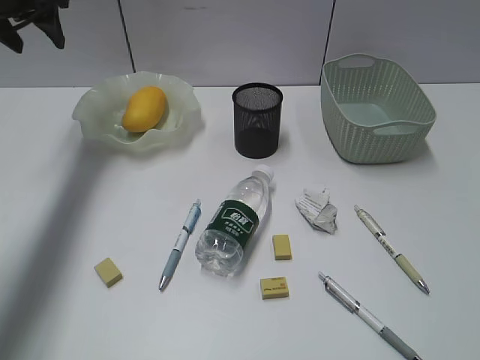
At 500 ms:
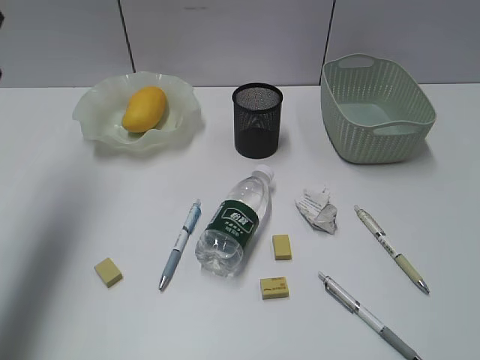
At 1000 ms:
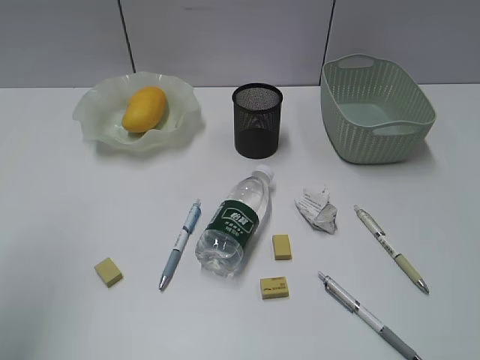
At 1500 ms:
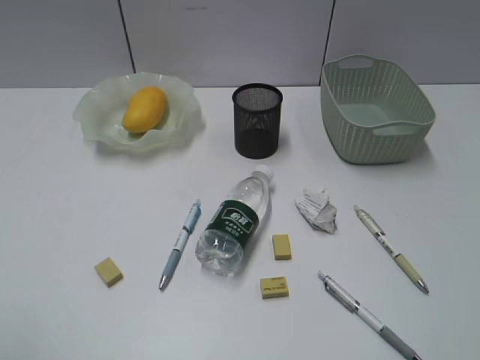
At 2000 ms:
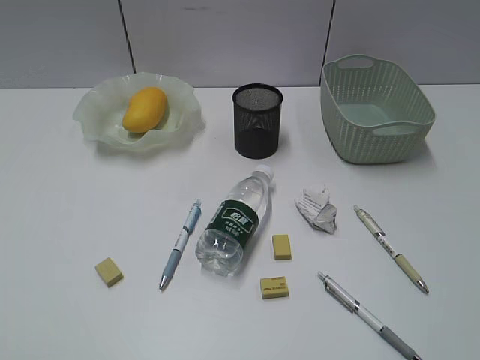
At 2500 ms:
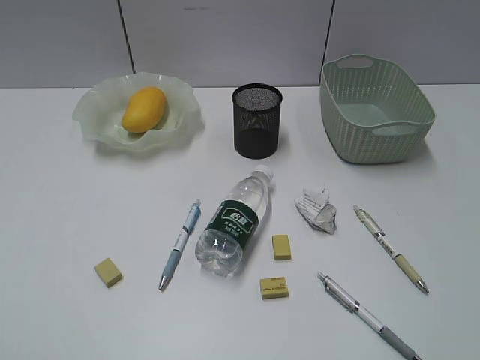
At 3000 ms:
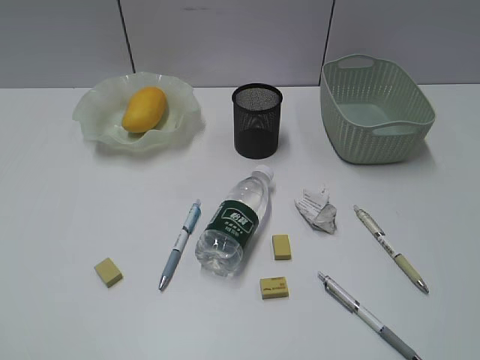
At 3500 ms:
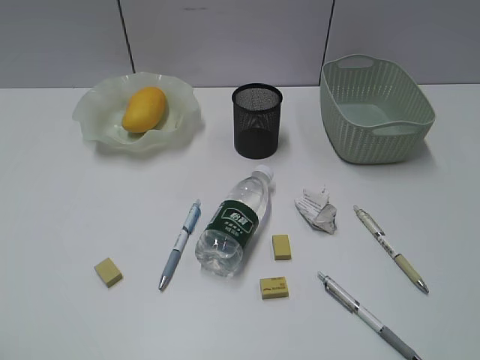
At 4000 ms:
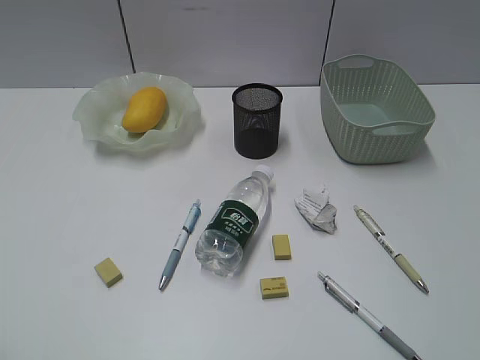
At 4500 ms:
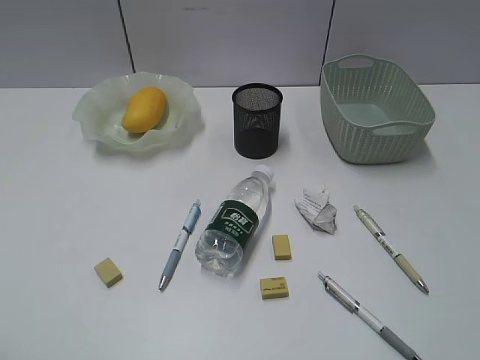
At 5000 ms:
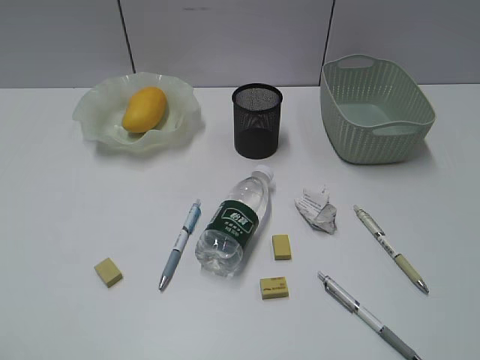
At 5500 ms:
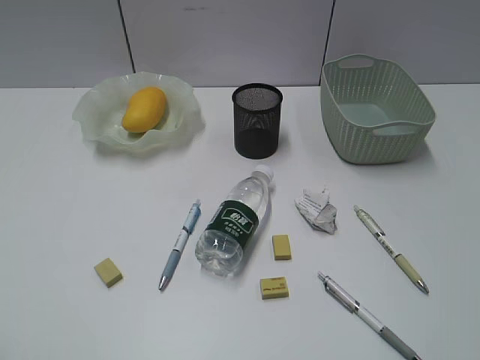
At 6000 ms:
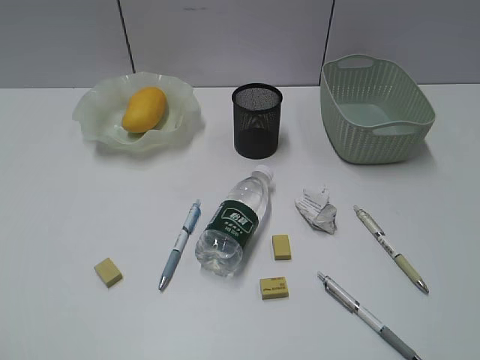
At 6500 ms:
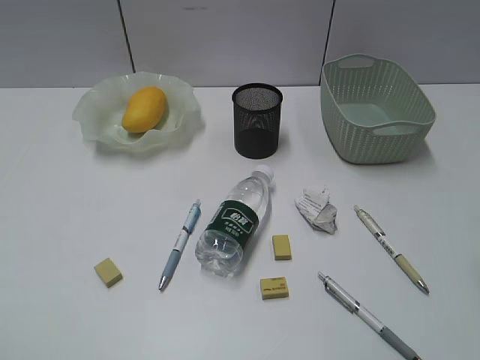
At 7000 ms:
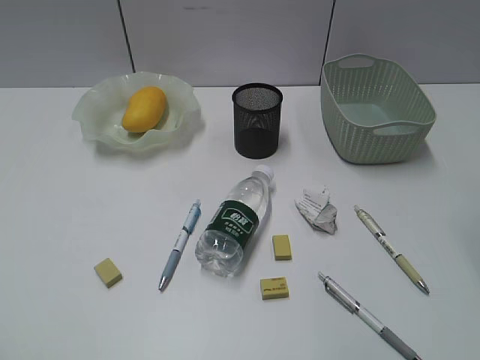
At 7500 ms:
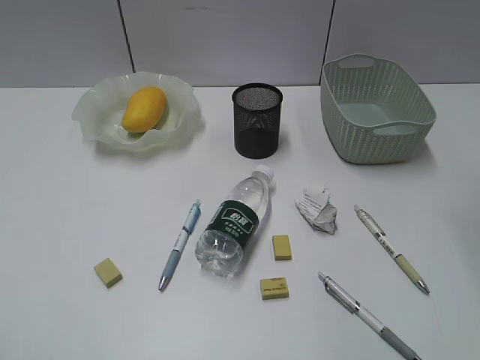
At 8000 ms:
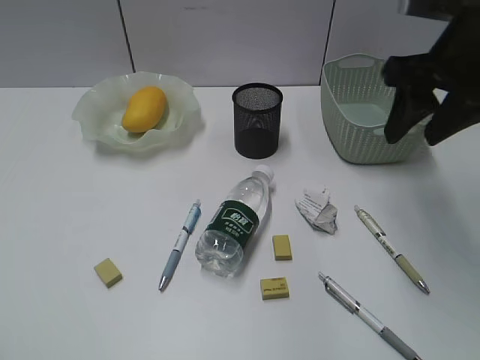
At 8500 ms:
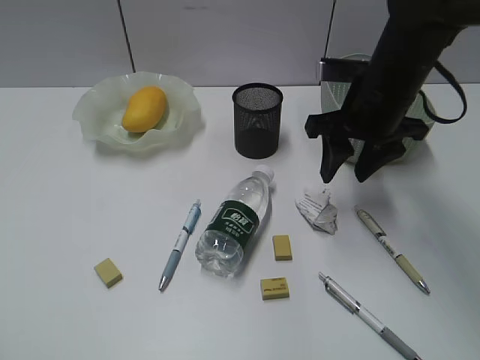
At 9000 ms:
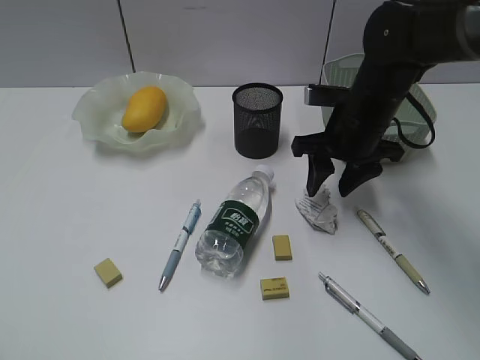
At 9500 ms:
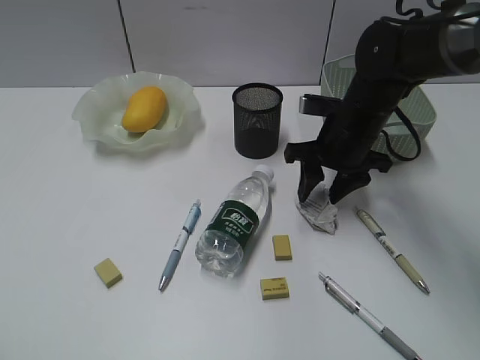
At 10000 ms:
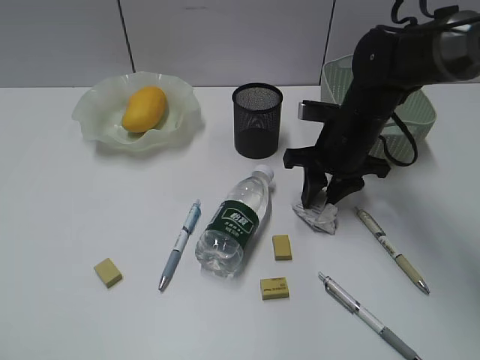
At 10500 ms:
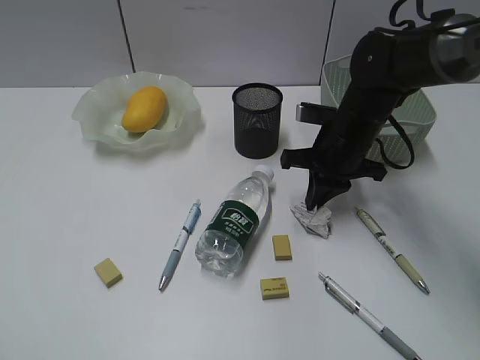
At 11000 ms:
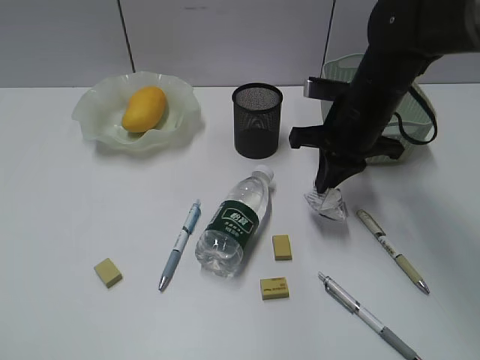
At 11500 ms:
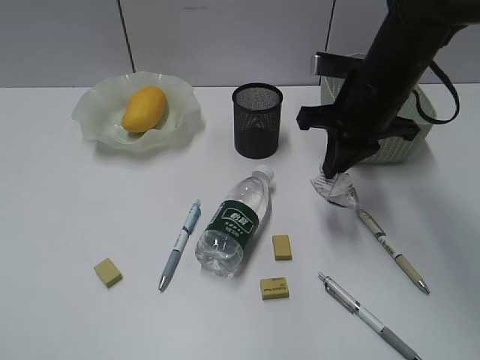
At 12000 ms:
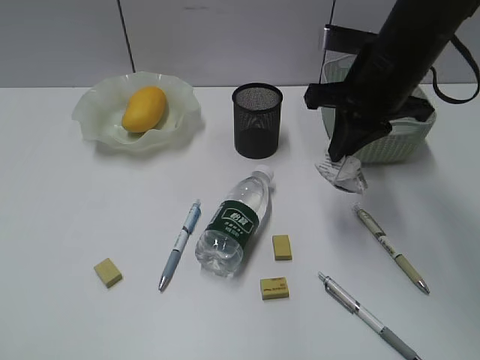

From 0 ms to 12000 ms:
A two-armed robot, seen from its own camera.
Step, from 0 ms to 10000 ms: Grasp the waste paper with right gripper.
From 0 ms to 2000 ms: The left gripper is displaced backward by about 50 cm.
From 6000 ms to 8000 ms: The right gripper goes roughly 30 cm forward.
From 8000 ms to 10000 ms: The right gripper travels downward and to the left by about 20 cm.
From 10000 ms to 12000 ms: The right gripper travels upward by some 10 cm, and closes up.

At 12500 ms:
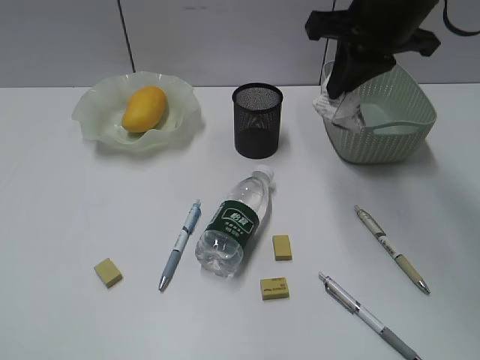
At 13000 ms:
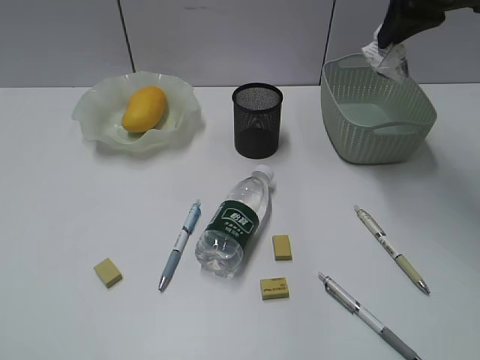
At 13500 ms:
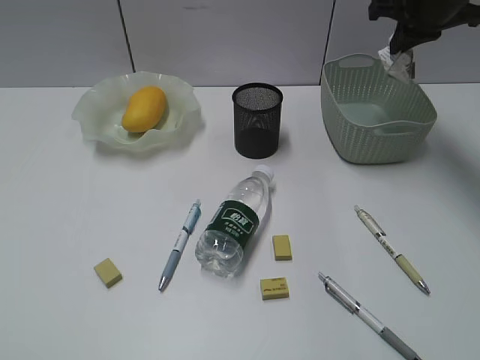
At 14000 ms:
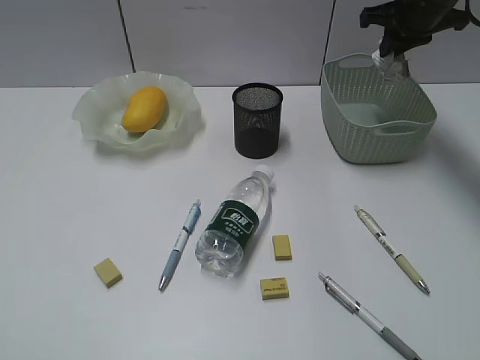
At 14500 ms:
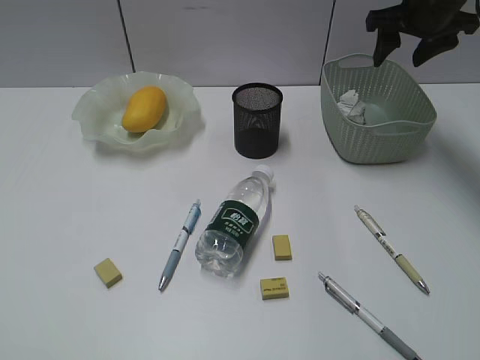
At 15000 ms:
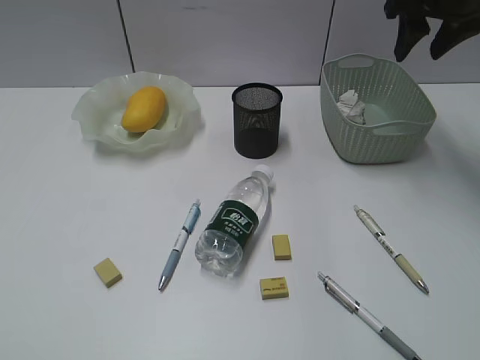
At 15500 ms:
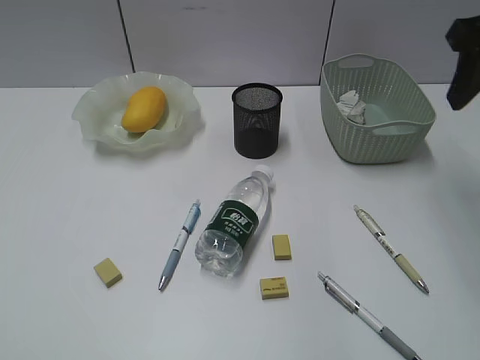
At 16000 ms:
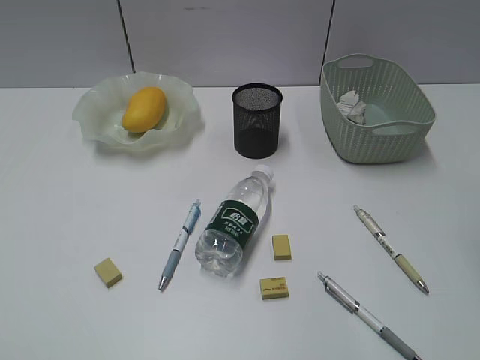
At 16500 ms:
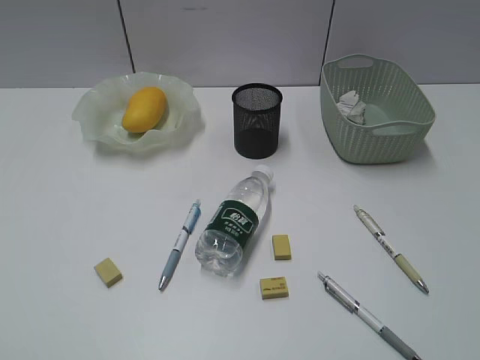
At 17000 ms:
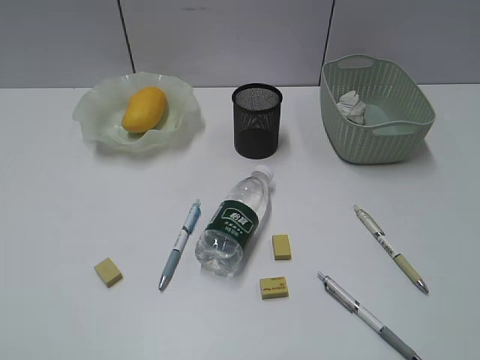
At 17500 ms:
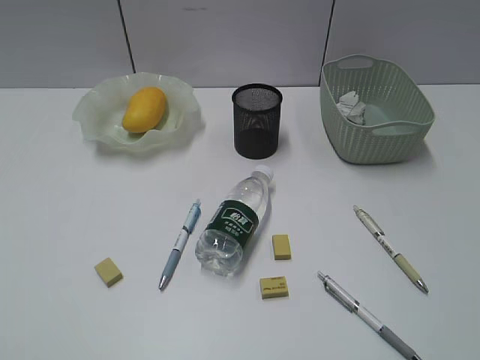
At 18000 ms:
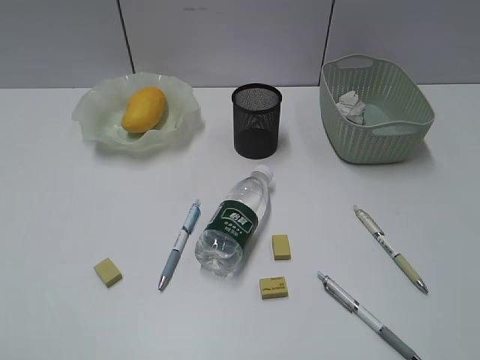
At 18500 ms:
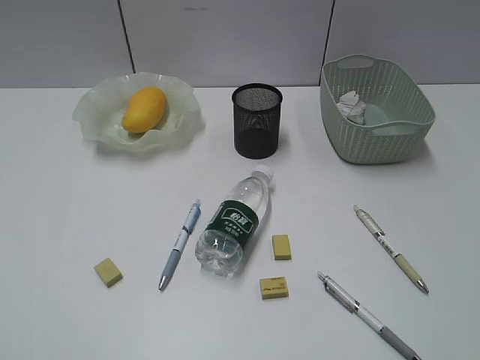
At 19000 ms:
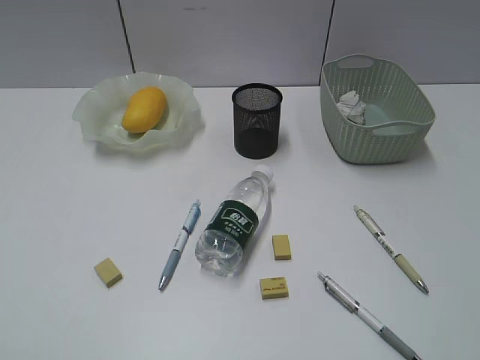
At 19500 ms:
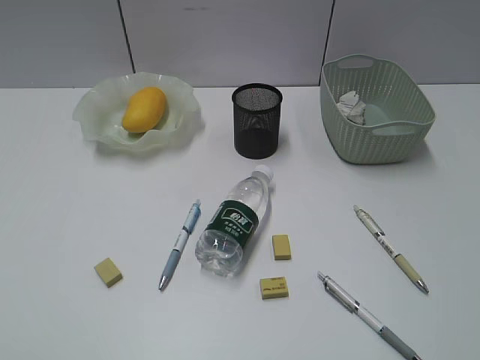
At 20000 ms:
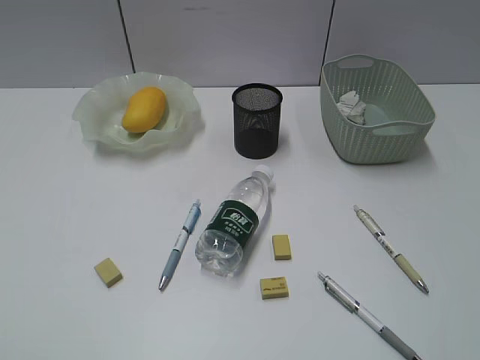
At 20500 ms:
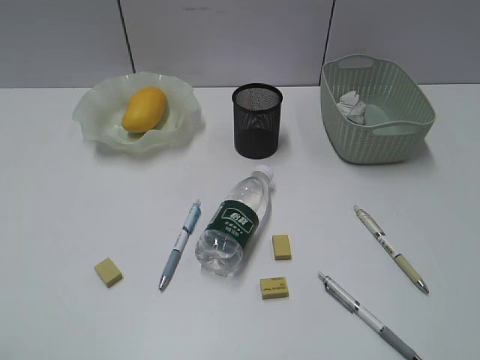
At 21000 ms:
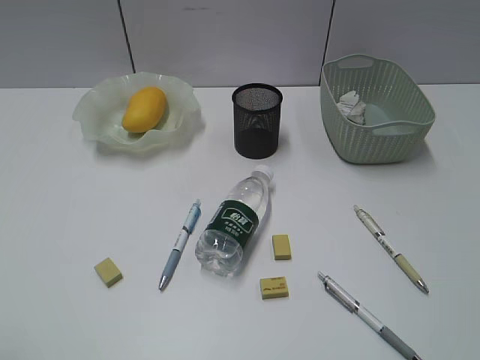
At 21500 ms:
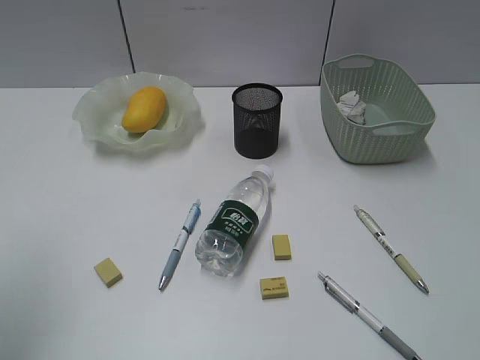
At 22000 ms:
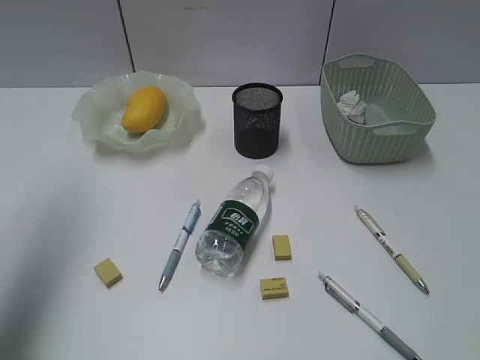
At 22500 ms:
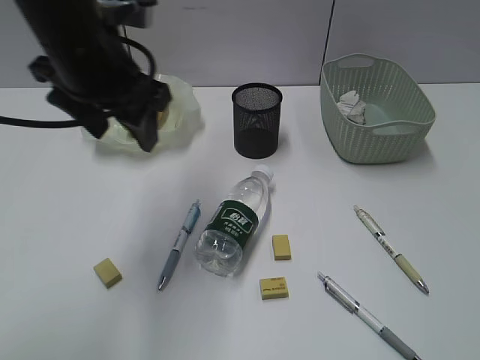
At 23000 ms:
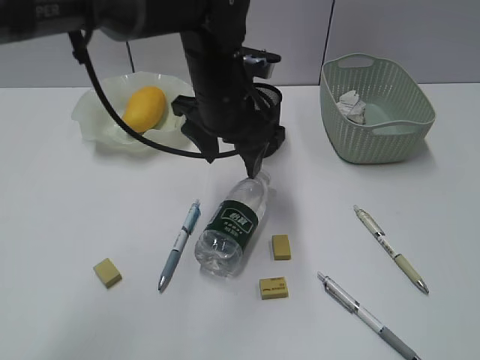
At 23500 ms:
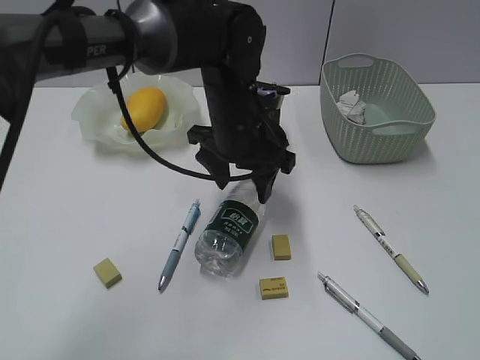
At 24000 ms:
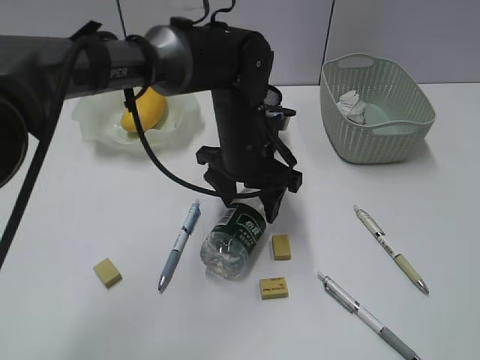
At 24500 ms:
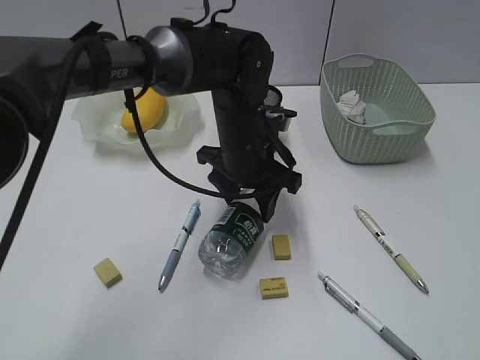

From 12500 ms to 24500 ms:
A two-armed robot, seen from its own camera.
From 12500 ms to 14500 ms: The right gripper is displaced forward and to the right by about 15 cm, and opens up.
From 14500 ms to 16500 ms: The right gripper travels backward by roughly 40 cm.
From 20500 ms to 22500 ms: The left gripper moves forward and to the right, roughly 35 cm.
From 22500 ms to 24500 ms: The left gripper travels to the right and downward by about 20 cm.

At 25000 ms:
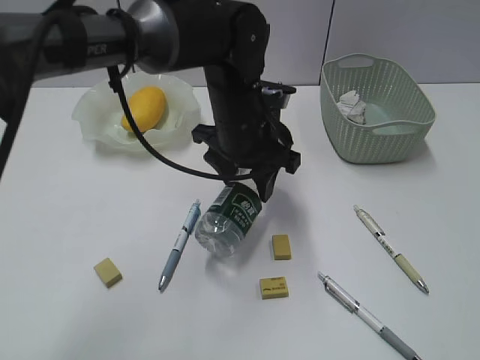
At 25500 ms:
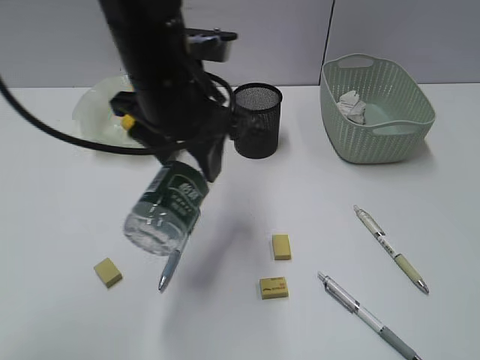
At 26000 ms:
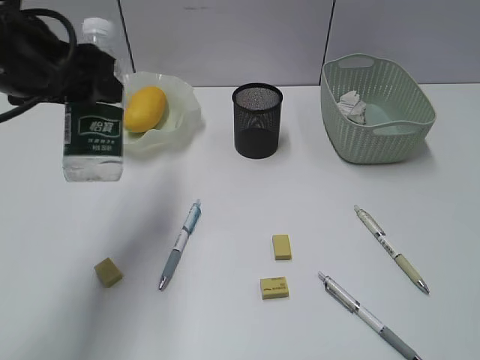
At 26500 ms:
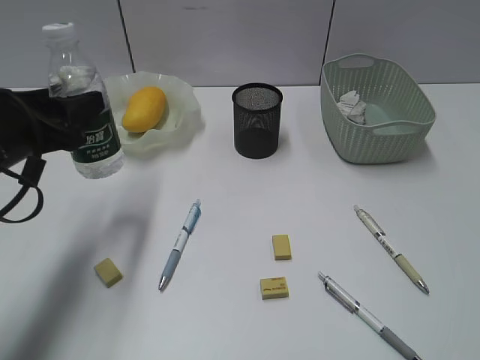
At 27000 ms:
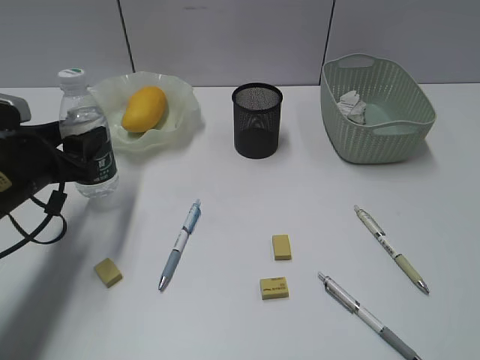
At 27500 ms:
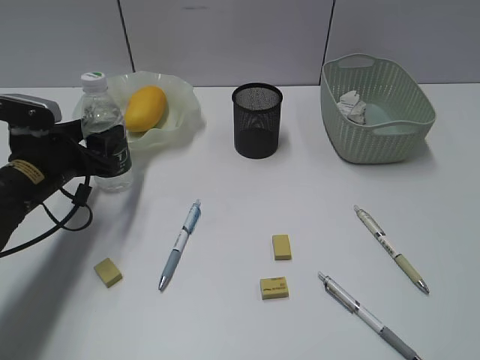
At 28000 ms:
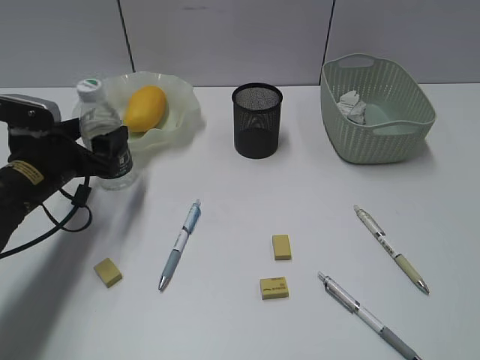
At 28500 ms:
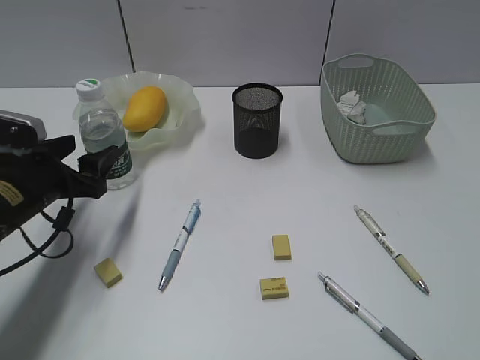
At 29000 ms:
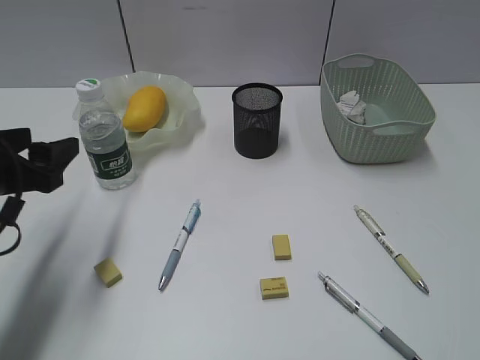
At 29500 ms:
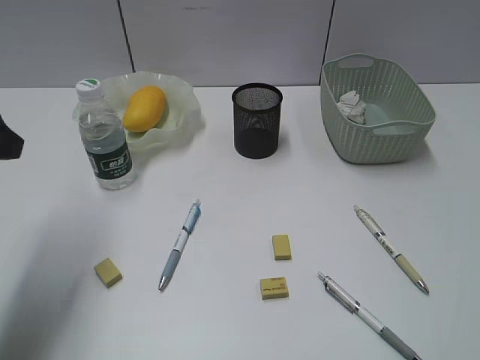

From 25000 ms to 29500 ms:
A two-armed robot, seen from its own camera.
Step, from 25000 ms to 28500 ms: Stand the bottle with left gripper.
From 25000 ms to 27000 ms: The left gripper is displaced to the left by about 25 cm.
From 27000 ms to 29500 ms: The left gripper travels upward and backward by approximately 15 cm.
